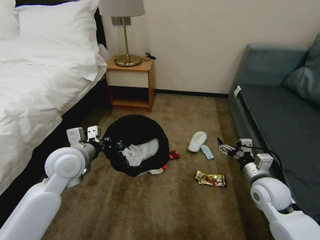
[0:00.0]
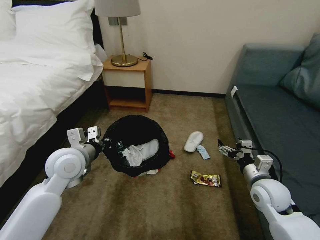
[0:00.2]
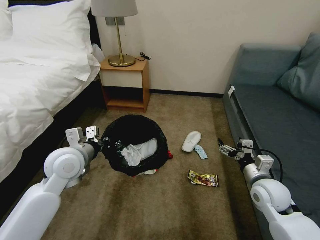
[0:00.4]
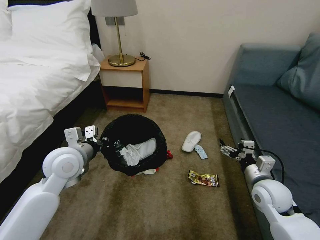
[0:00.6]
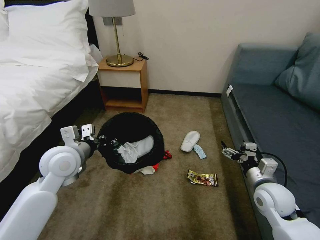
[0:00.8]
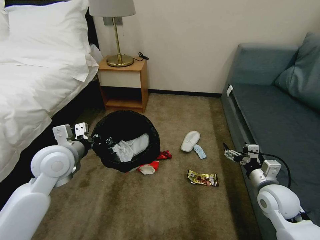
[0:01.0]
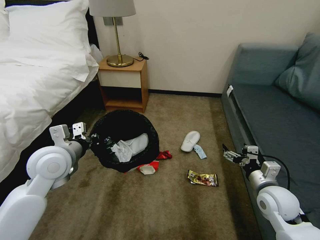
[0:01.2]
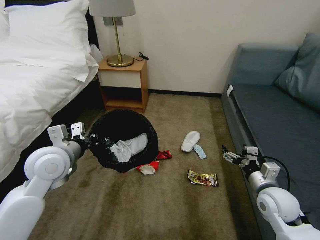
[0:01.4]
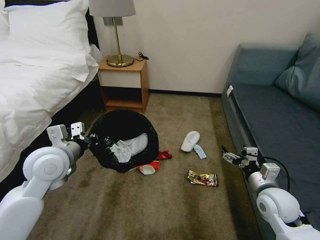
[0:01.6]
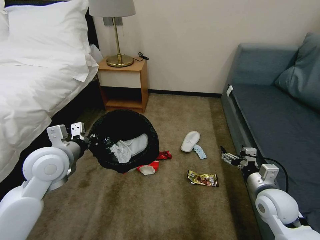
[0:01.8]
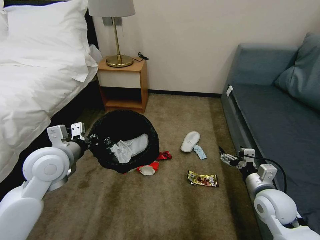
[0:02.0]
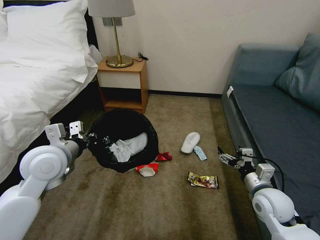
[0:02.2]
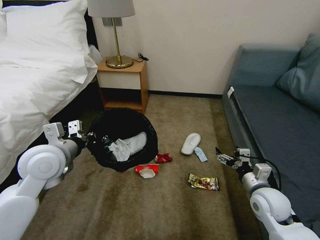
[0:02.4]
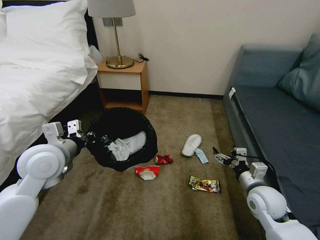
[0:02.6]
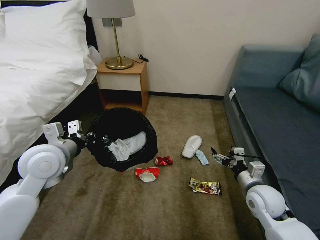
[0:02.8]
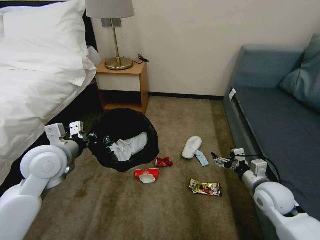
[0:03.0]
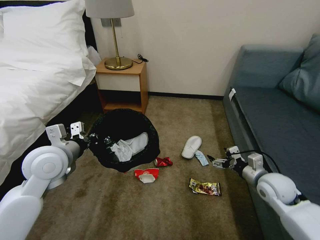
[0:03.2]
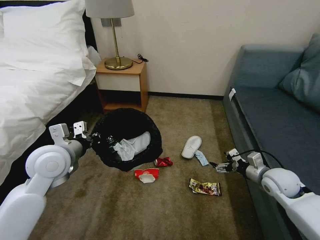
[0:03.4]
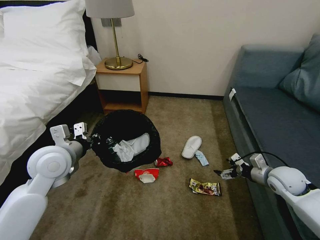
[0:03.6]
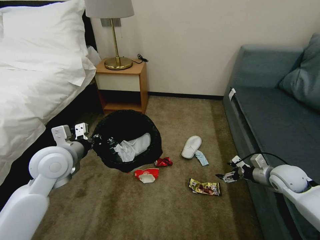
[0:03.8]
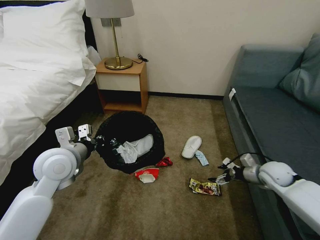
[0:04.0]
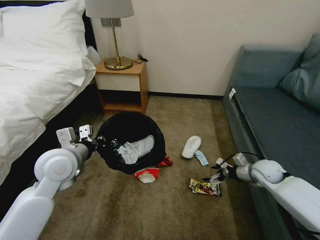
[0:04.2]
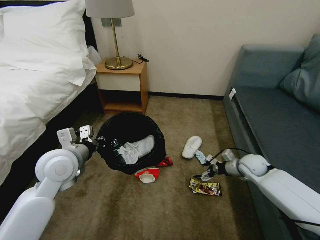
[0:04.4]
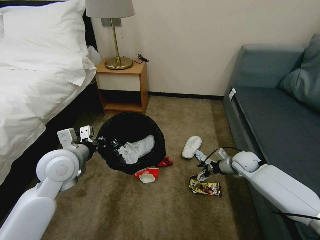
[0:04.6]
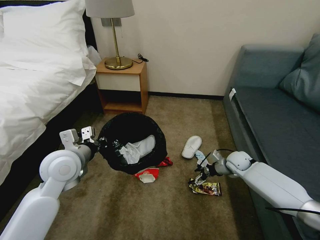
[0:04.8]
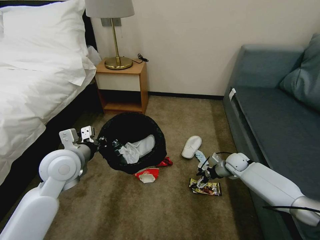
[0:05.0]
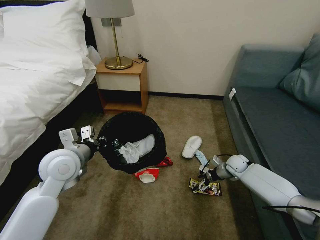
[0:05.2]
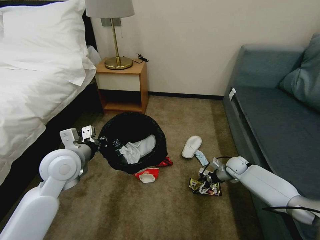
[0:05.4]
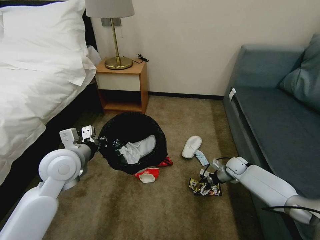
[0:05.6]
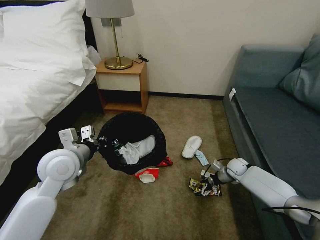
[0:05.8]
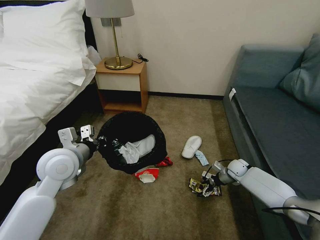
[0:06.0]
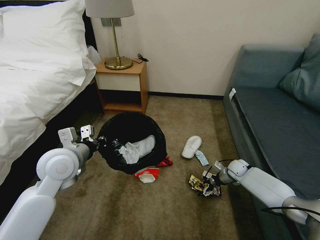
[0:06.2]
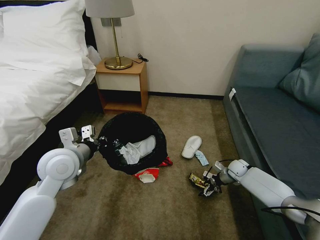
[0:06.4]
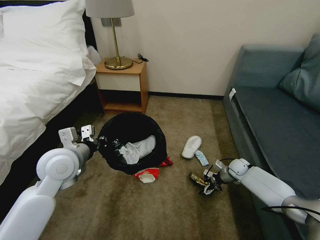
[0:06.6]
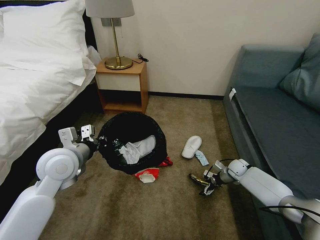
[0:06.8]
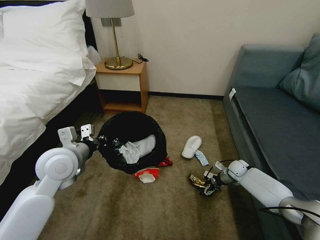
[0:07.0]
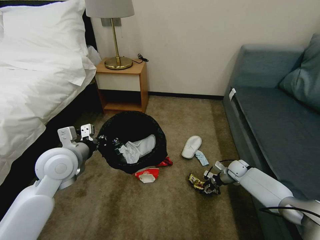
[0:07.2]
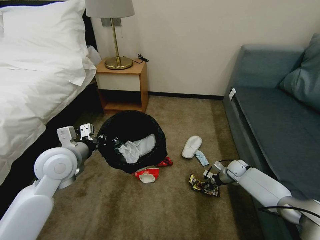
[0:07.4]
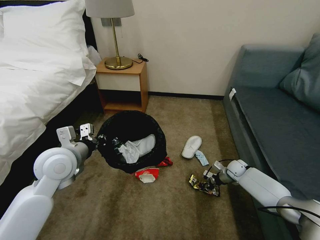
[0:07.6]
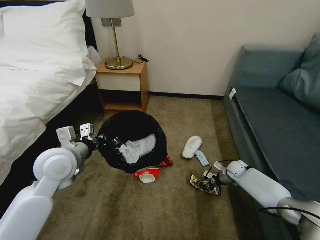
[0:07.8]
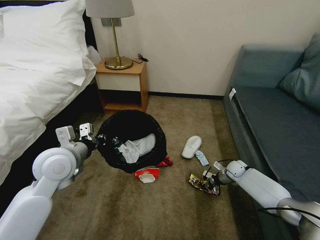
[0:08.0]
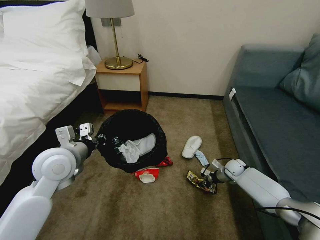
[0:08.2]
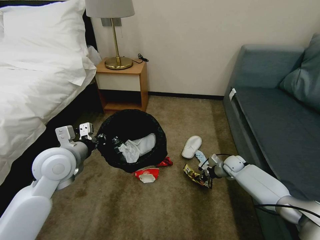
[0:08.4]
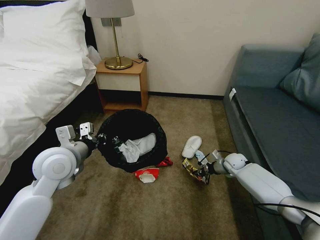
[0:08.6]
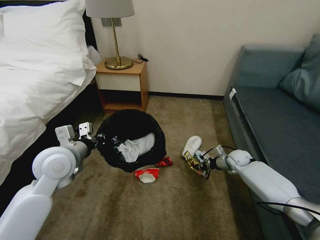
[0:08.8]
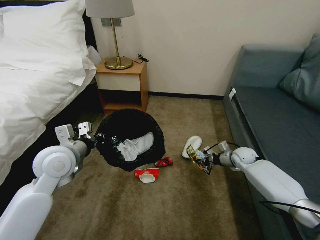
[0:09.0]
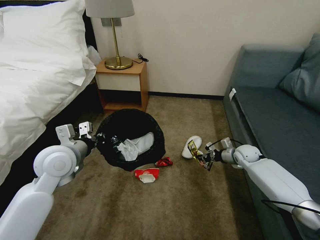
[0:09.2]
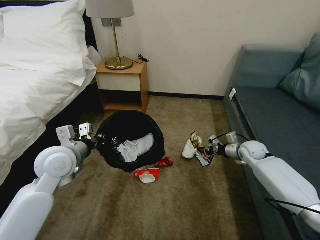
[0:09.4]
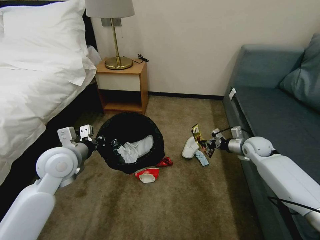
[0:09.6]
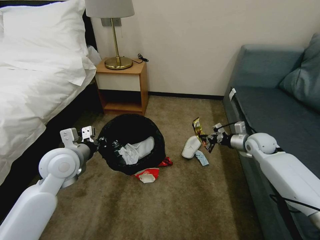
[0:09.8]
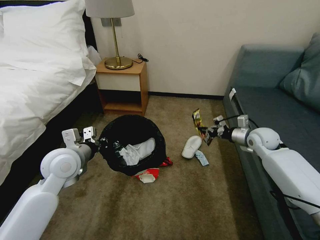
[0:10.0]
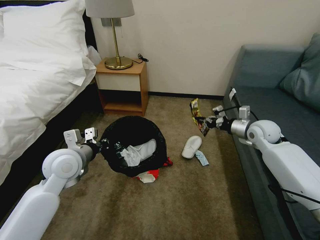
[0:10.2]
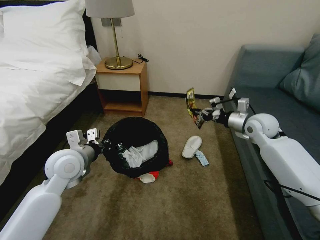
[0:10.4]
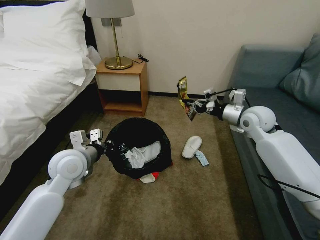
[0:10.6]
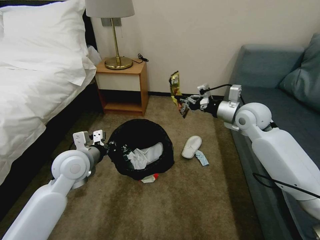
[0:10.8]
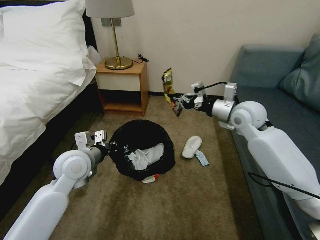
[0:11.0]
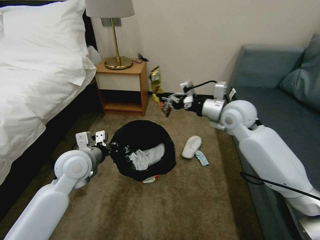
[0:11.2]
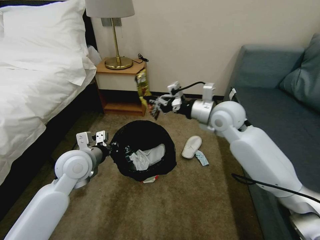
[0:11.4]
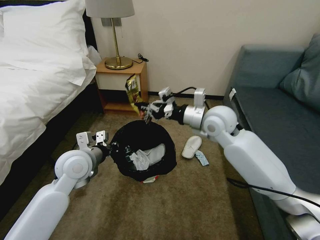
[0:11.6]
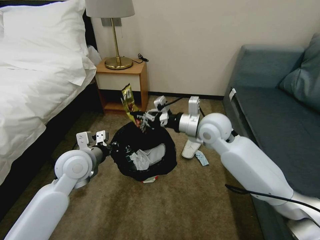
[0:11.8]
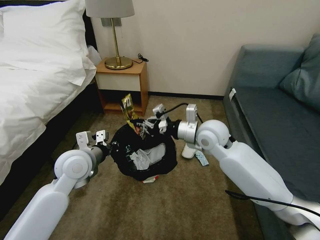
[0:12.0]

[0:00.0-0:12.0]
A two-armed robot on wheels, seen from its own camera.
Task of the whole recording: Pick up the trash bin, then pick up the garbage on the floor and place it into the trash bin.
0:01.6 to 0:03.0: The grippers move only a little.
0:03.0 to 0:04.4: The right gripper goes about 15 cm forward.
0:04.4 to 0:06.0: The right gripper moves downward, about 10 cm.
0:06.0 to 0:07.6: The right gripper closes.
0:07.6 to 0:09.0: The right gripper moves upward, roughly 10 cm.
0:09.0 to 0:10.4: The right gripper moves upward, about 20 cm.
0:10.4 to 0:12.0: The right gripper shifts roughly 20 cm to the left.

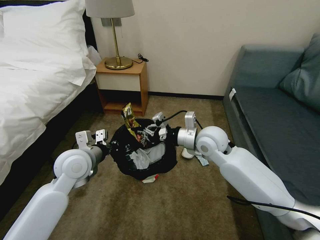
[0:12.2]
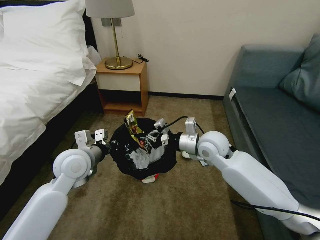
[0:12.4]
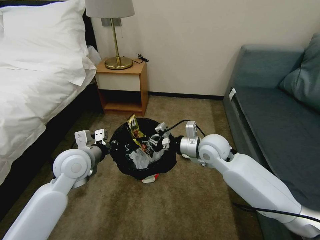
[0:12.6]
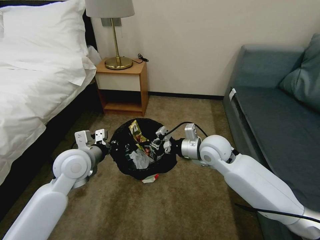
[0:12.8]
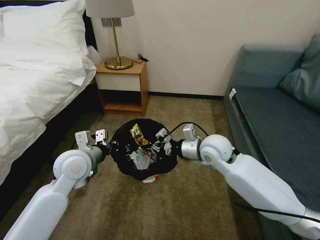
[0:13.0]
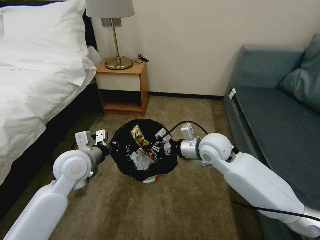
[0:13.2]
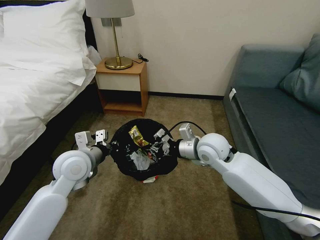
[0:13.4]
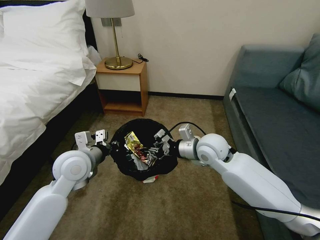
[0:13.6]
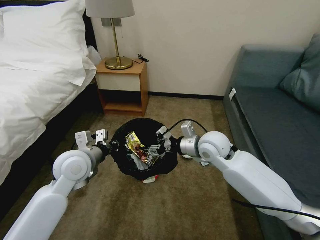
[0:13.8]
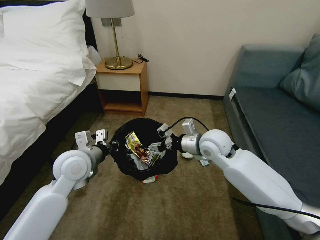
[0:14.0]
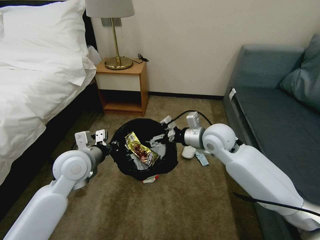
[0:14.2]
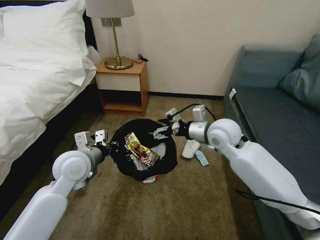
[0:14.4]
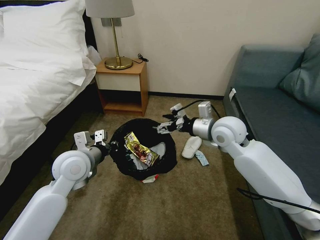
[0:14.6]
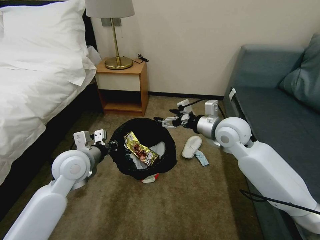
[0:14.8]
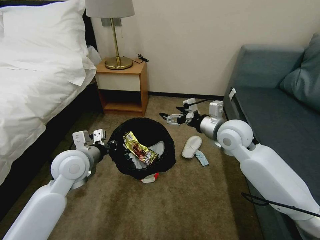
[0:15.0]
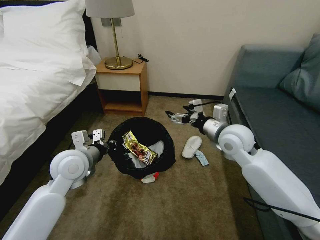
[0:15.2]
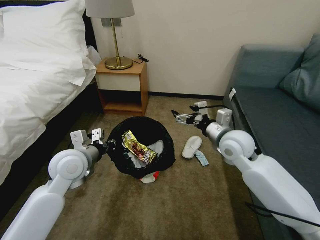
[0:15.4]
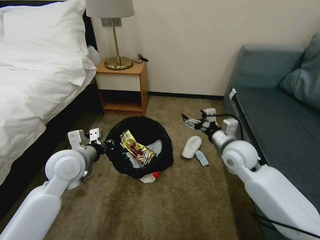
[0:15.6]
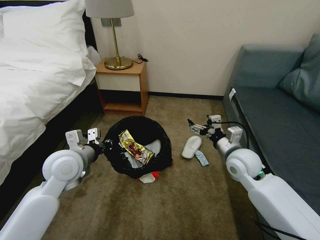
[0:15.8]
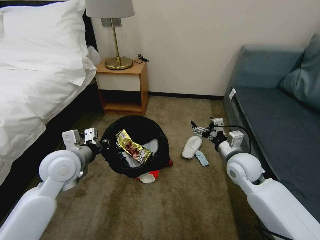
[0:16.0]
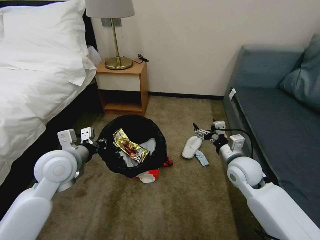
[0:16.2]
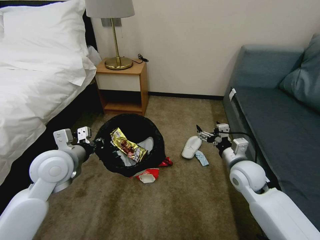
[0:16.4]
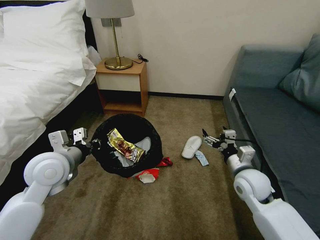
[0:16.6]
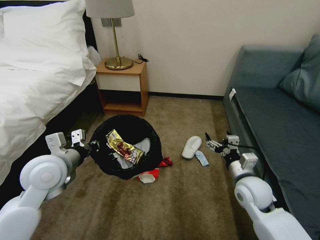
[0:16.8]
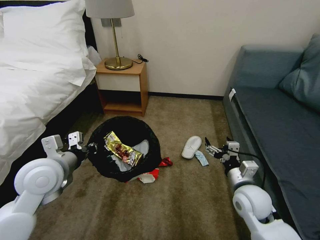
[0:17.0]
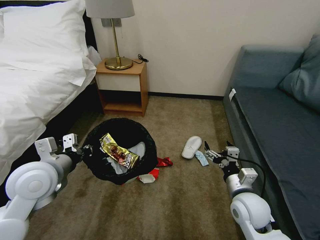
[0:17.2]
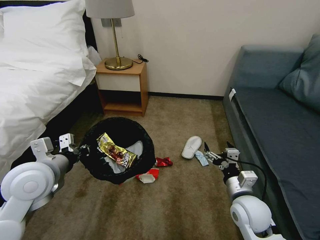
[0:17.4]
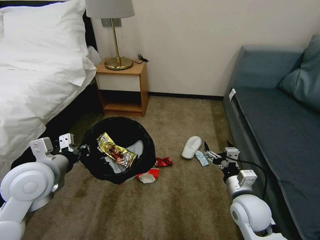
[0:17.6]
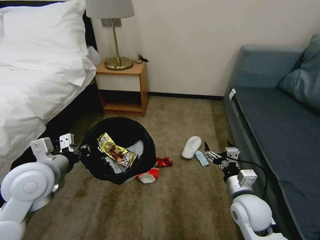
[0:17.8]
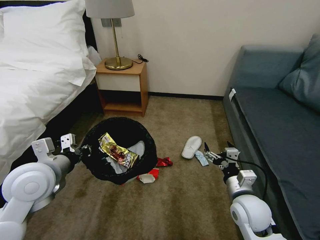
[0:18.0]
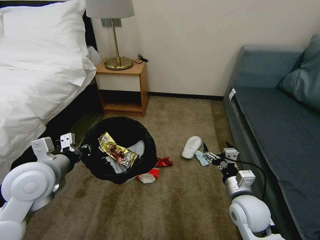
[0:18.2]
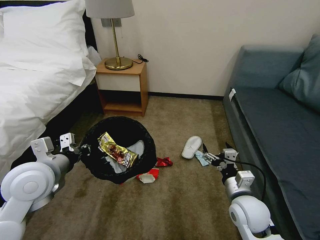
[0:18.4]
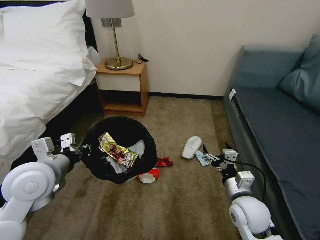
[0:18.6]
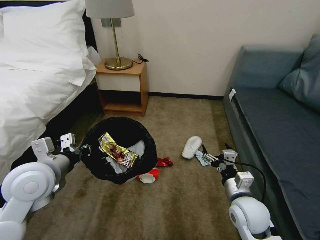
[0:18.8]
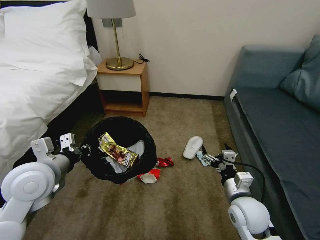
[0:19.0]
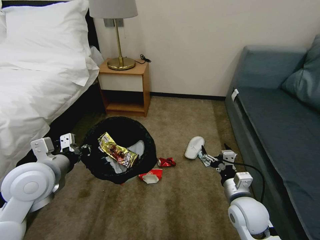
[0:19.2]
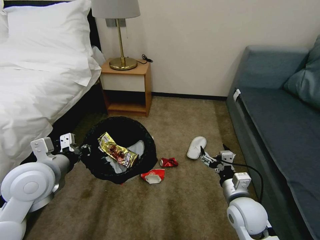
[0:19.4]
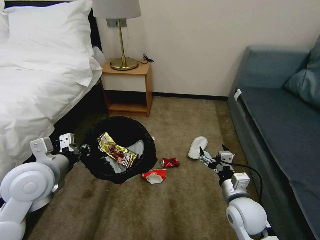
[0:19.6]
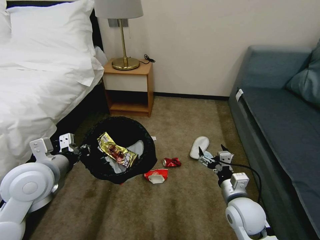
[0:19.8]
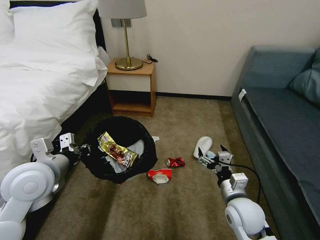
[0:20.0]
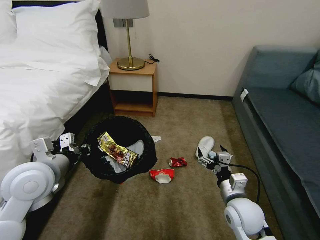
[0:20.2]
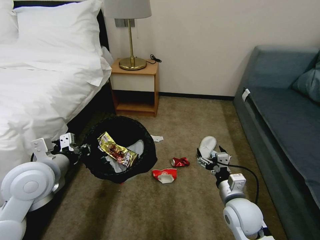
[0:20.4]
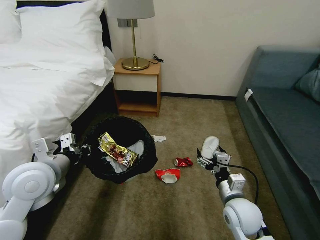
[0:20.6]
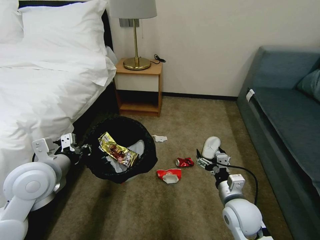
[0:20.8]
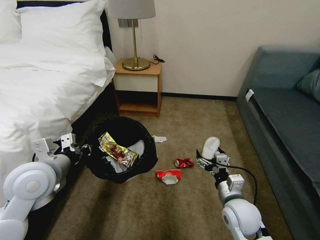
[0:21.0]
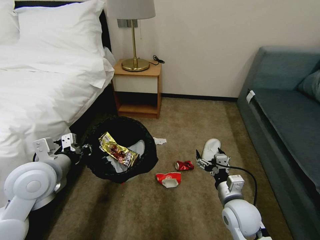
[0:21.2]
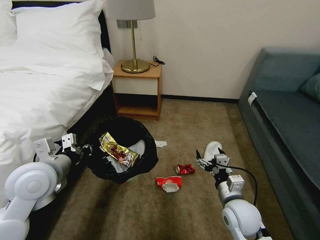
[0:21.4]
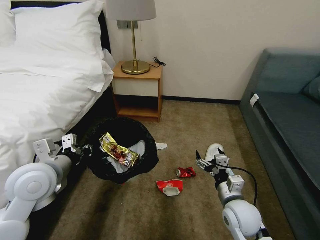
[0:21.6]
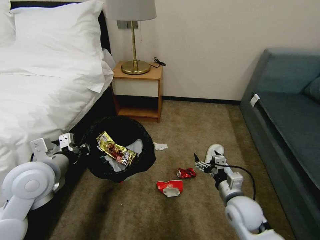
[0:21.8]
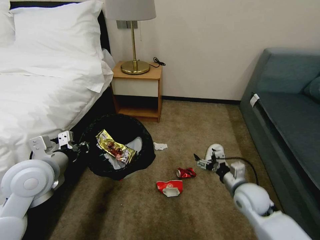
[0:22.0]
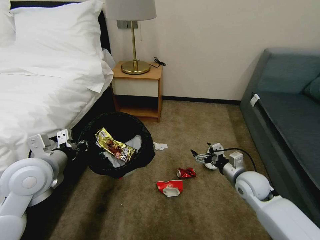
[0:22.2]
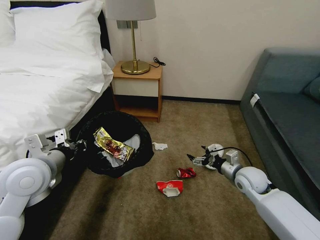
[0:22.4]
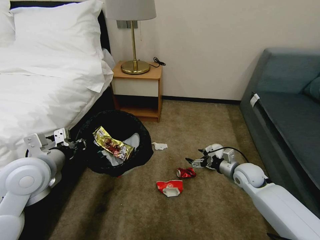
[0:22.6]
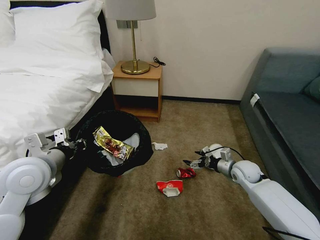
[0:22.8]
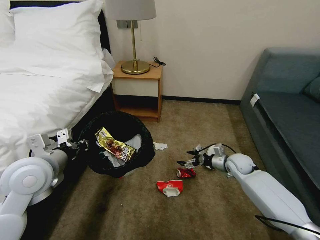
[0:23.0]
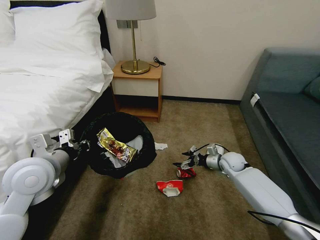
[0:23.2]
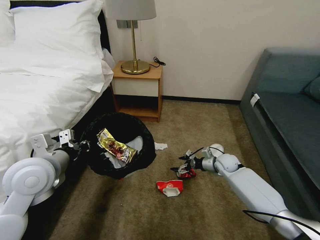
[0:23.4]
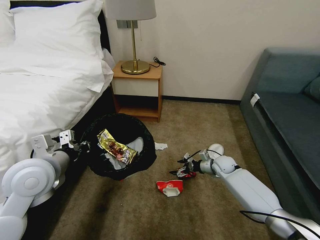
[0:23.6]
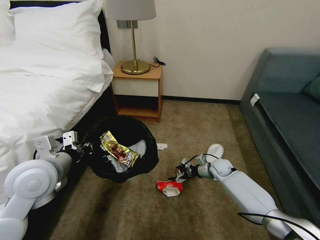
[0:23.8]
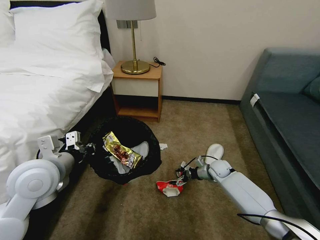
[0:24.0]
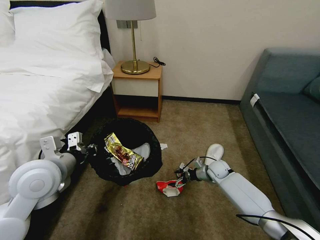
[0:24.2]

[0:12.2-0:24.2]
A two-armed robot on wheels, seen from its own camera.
Task of the whole recording: Pick up the trash bin, then pick up the garbage on the floor and place it into the trash bin.
0:12.2 to 0:13.8: The right gripper opens.
0:13.8 to 0:15.2: The right gripper heads to the right, covering approximately 5 cm, and opens up.
0:15.2 to 0:16.6: The right gripper moves downward, backward and to the right, about 15 cm. The left gripper ends up approximately 5 cm from where it was.
0:16.6 to 0:18.2: The right gripper travels backward by roughly 5 cm.
0:18.2 to 0:19.8: Both grippers stay put.
0:21.2 to 0:22.6: The right gripper travels forward and to the right by some 15 cm.
0:22.6 to 0:24.2: The right gripper shifts some 15 cm downward and forward.
